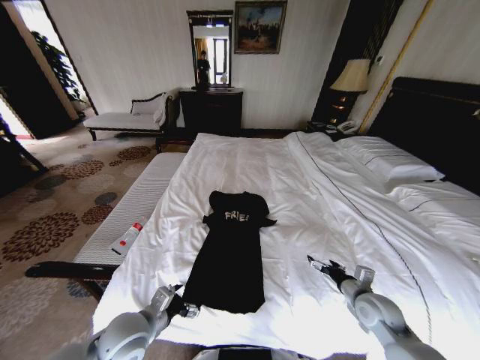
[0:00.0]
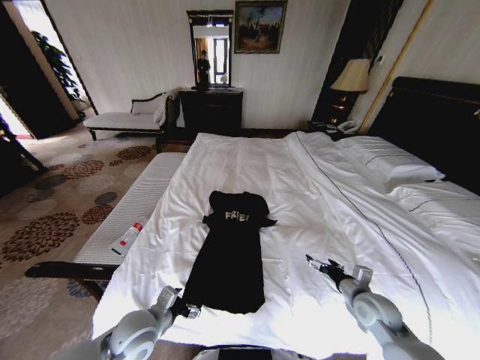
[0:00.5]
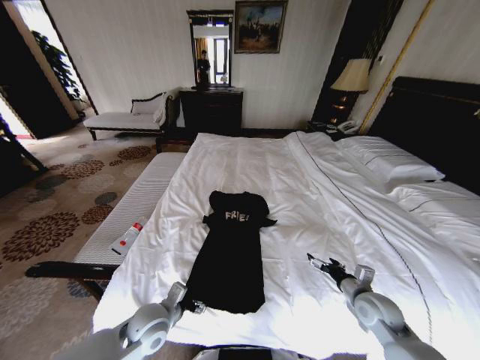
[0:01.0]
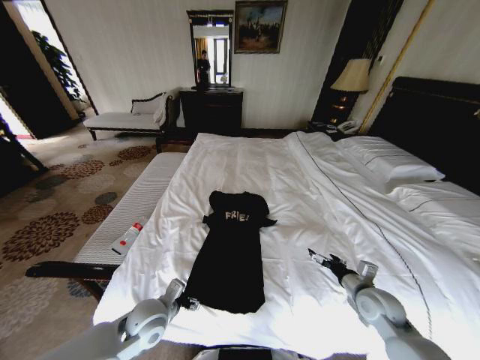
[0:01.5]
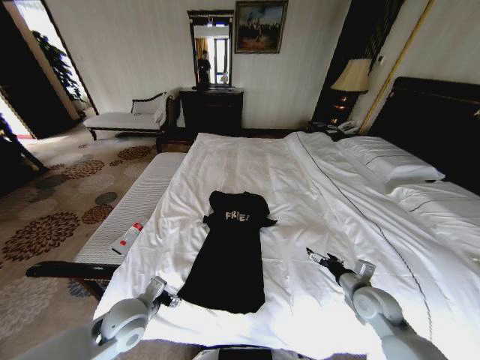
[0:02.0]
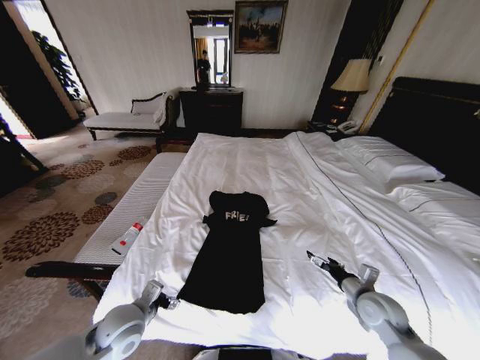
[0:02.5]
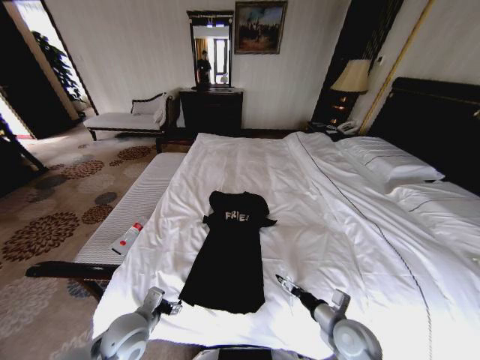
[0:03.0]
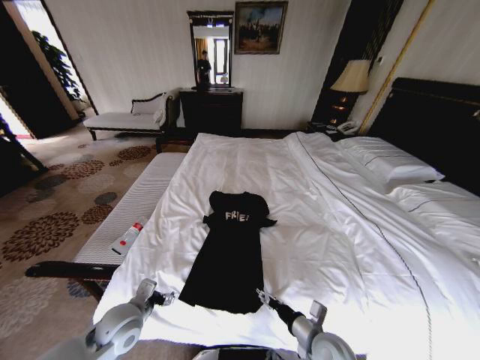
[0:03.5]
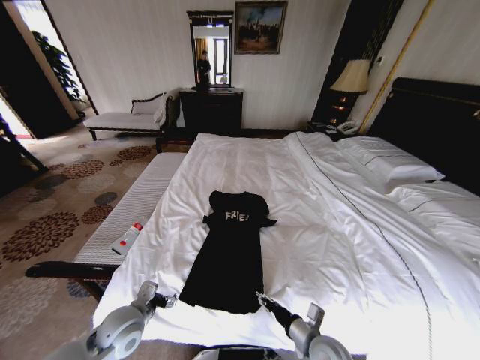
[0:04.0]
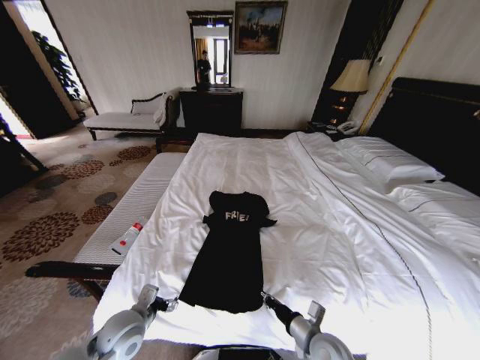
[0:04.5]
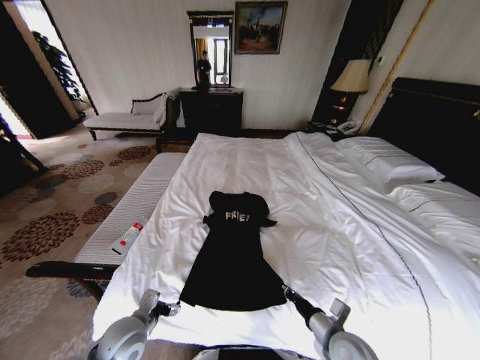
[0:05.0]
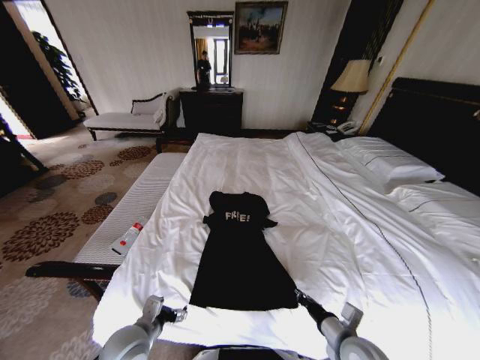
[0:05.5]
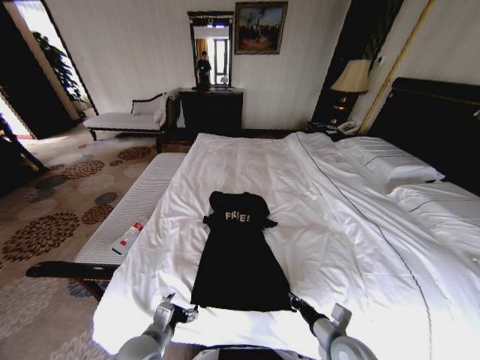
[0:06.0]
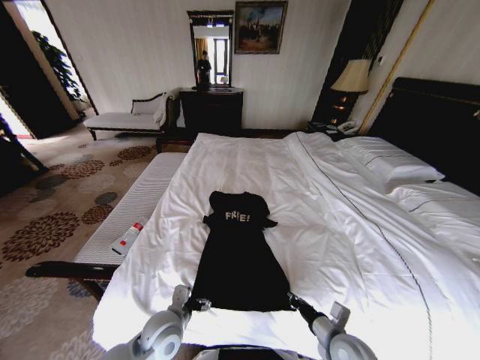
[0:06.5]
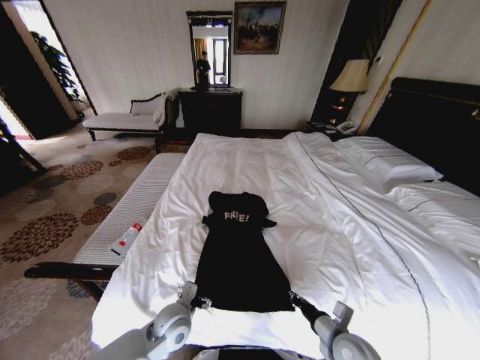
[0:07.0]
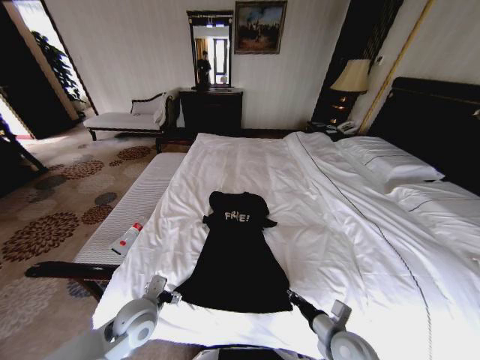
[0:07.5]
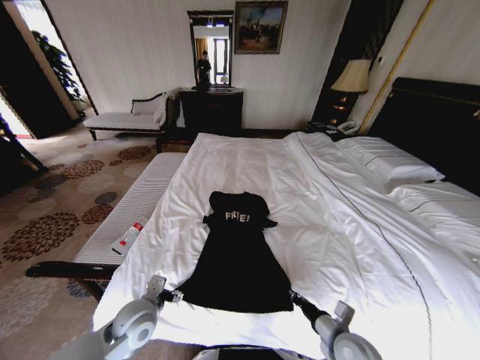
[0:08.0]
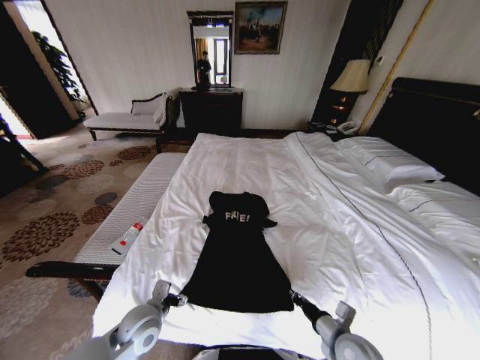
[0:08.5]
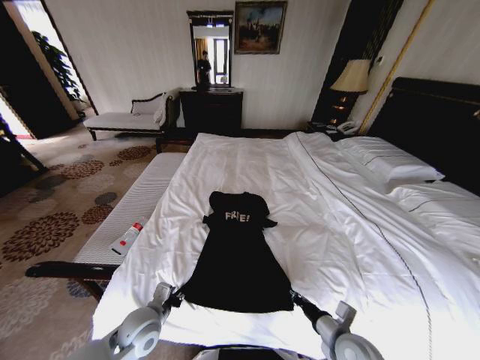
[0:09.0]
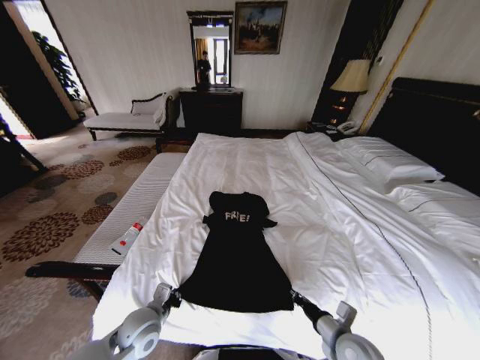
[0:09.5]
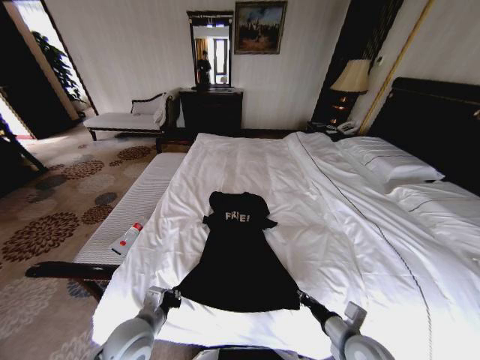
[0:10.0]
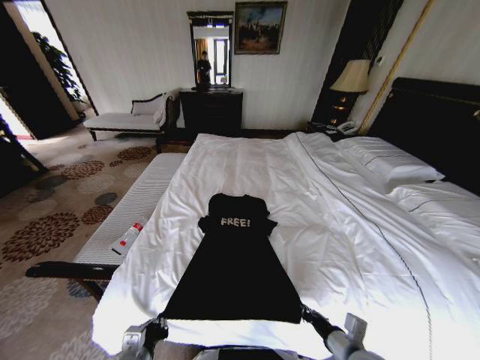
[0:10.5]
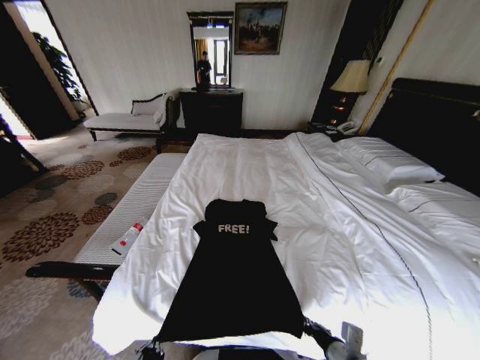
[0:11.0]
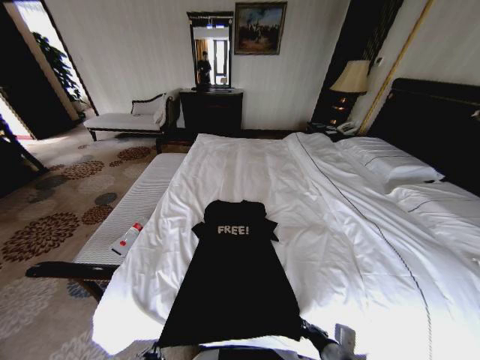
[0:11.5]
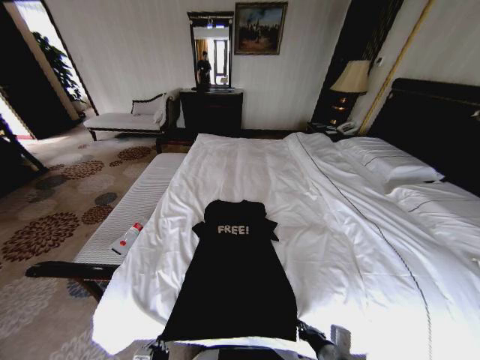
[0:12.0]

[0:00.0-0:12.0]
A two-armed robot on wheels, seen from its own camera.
Task of the whole recording: Fold the clothes on the bed.
0:02.0 to 0:04.0: The right gripper moves to the left and backward, some 20 cm, and closes its fingers.
0:04.0 to 0:06.0: The left gripper heads backward and to the right, covering roughly 10 cm. The right gripper moves to the right, approximately 5 cm, and closes.
0:06.0 to 0:08.0: The left gripper shifts roughly 5 cm forward, and travels to the right and back again, approximately 5 cm each way.
0:08.0 to 0:10.0: The left gripper closes.
0:10.0 to 0:12.0: The right gripper changes place by some 5 cm; the left gripper moves backward and downward, about 15 cm.

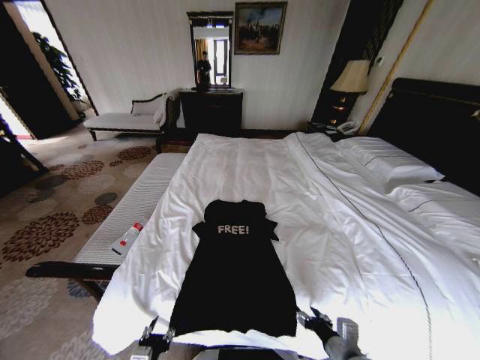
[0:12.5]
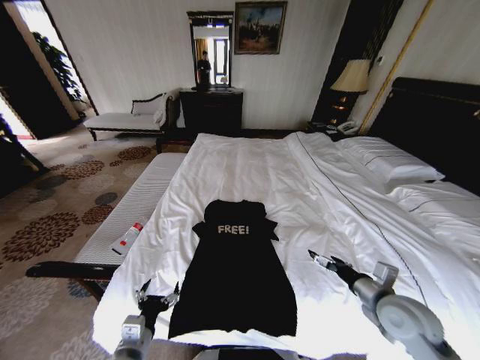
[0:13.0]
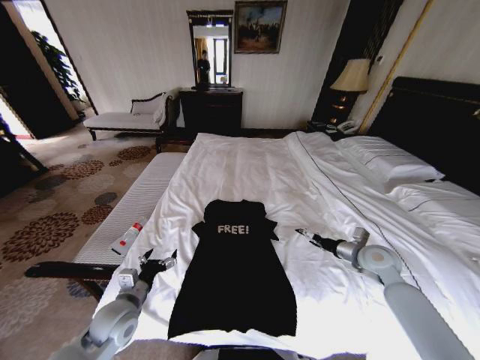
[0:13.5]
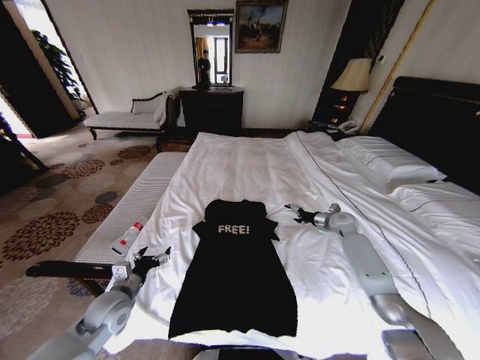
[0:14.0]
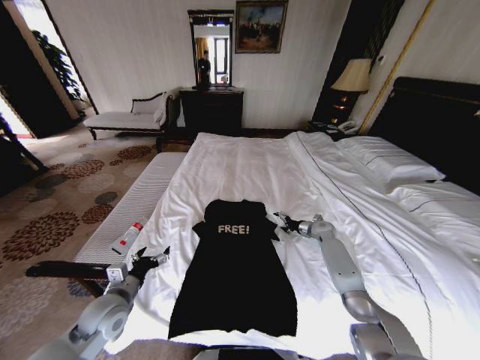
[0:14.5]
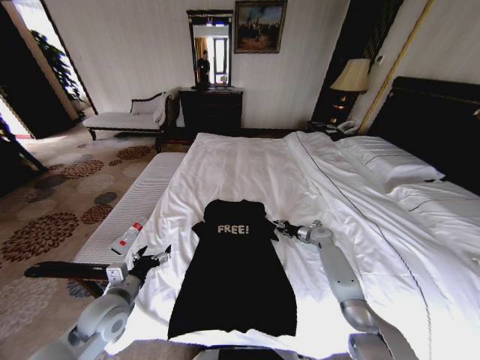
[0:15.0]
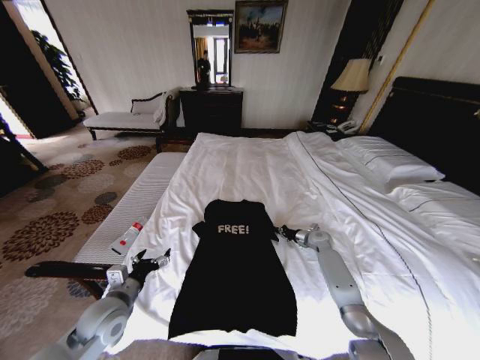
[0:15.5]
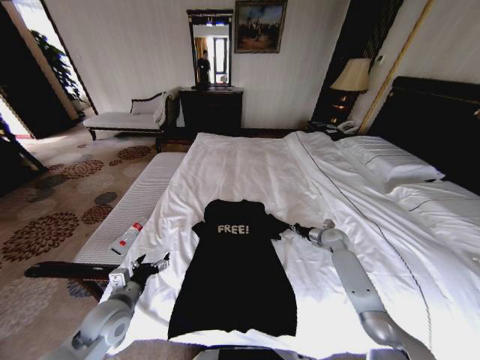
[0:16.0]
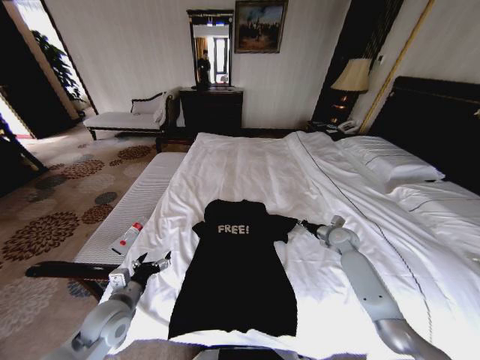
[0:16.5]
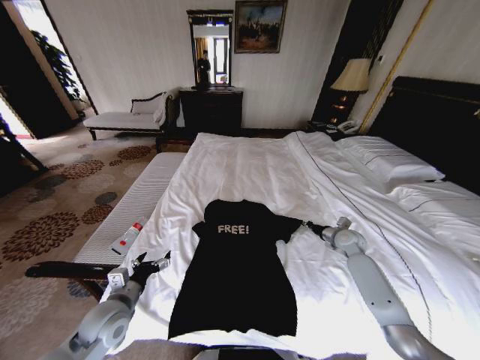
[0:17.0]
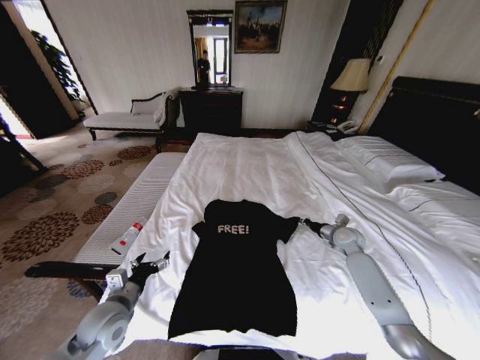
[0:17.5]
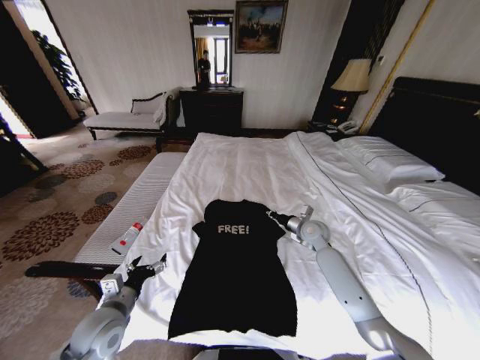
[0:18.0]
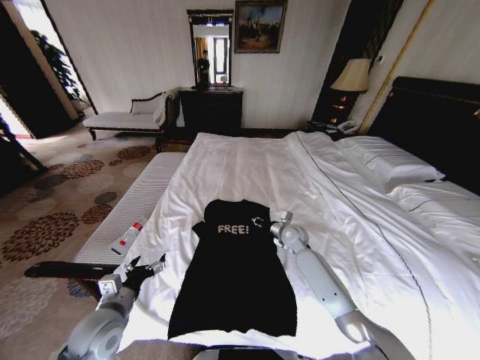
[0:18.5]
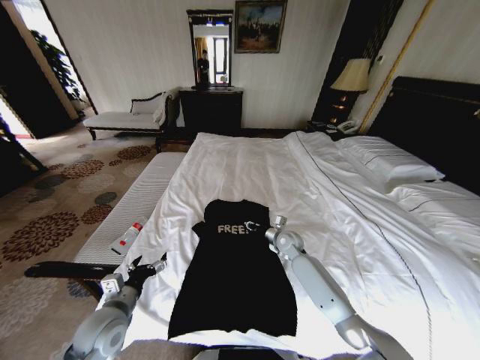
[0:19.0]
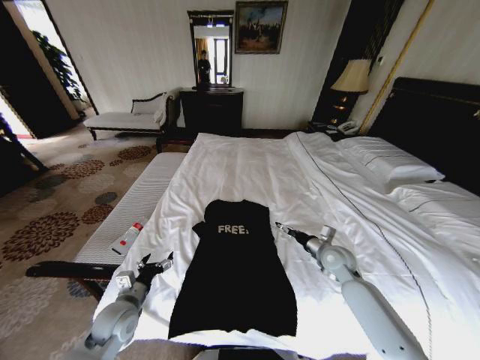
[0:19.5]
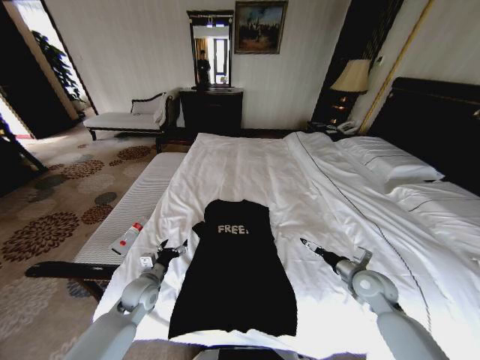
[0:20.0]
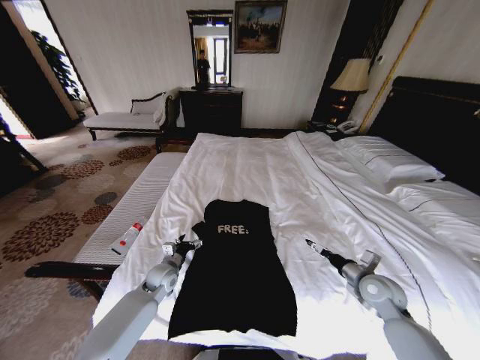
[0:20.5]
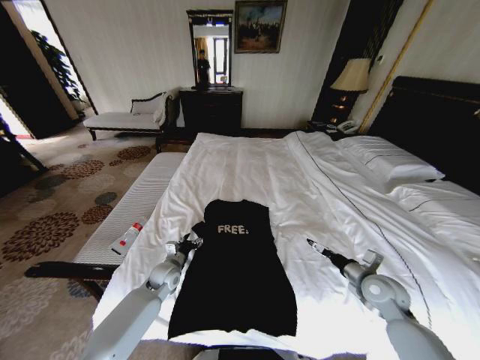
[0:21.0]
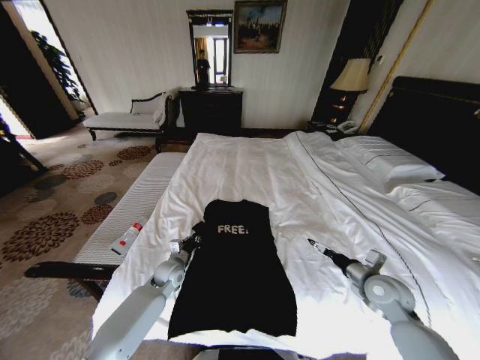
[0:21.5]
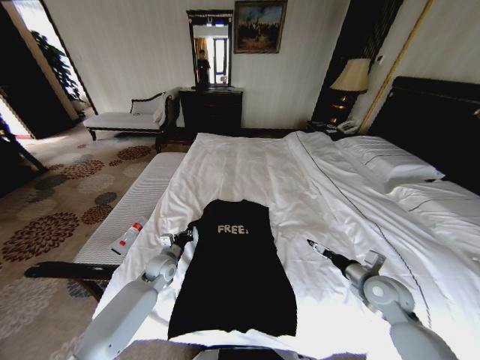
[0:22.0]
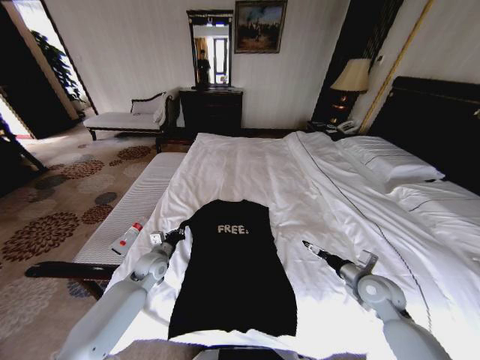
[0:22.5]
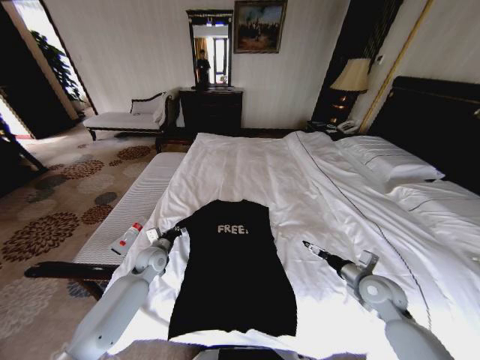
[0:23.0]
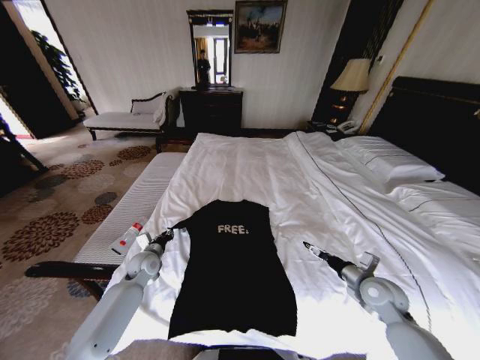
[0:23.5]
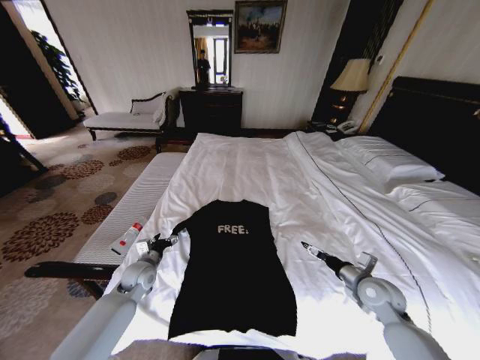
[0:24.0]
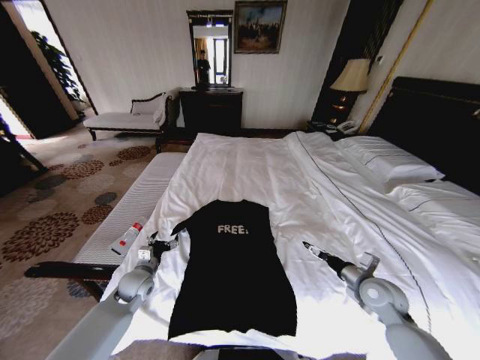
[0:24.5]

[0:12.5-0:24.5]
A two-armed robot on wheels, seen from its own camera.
Task of the whole recording: Fold the clothes on the bed.
0:12.5 to 0:14.5: The right gripper goes roughly 40 cm forward, and opens its fingers. Meanwhile the left gripper shifts approximately 20 cm forward and to the left, and opens.
0:14.5 to 0:16.5: The right gripper moves backward, approximately 5 cm, and closes.
0:16.5 to 0:18.5: The right gripper travels to the left by some 20 cm.
0:18.5 to 0:20.5: The right gripper goes approximately 25 cm backward and to the right, and opens its fingers; the left gripper travels forward, downward and to the right by some 20 cm.
0:20.5 to 0:22.5: The left gripper changes place by some 5 cm, and closes.
0:22.5 to 0:24.5: The left gripper is displaced backward by approximately 5 cm, and opens up.

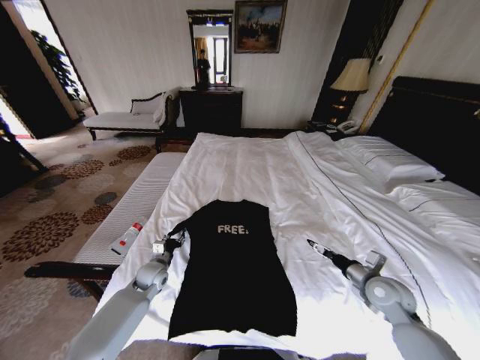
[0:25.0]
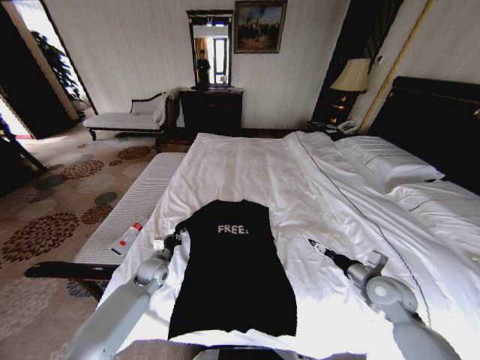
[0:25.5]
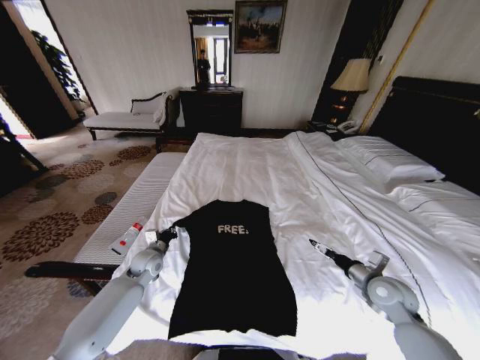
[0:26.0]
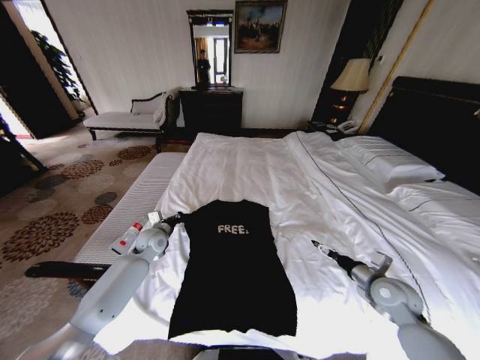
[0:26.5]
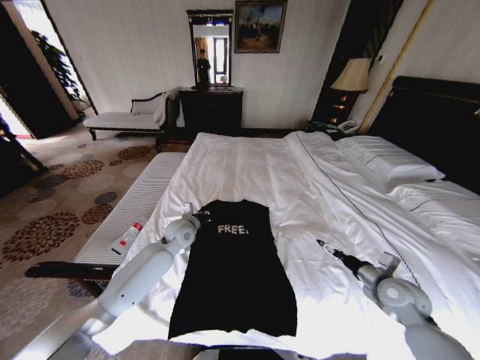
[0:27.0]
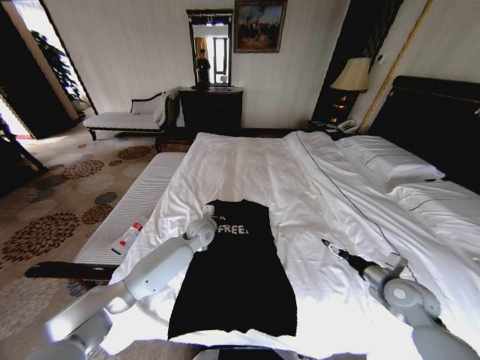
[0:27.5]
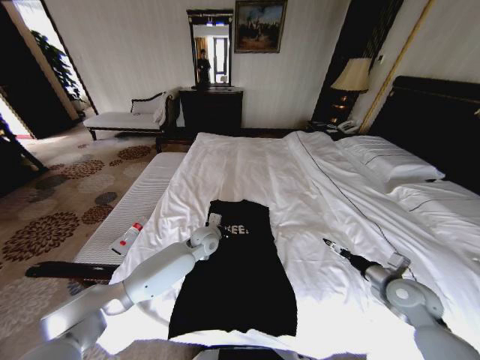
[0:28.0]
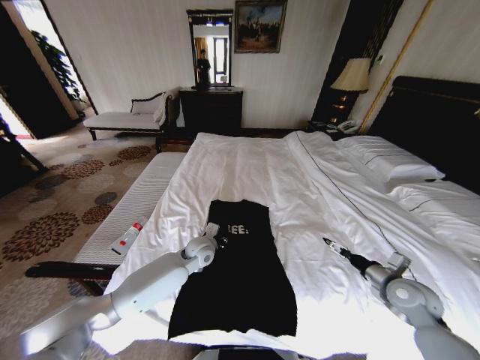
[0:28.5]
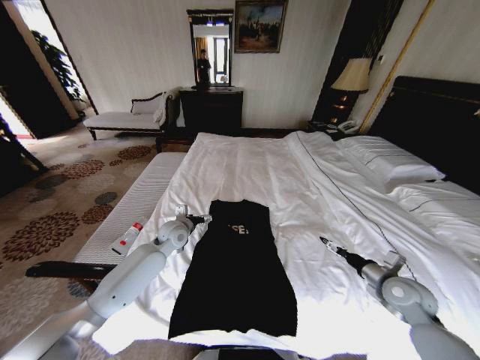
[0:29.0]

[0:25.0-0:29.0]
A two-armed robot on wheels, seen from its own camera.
Task of the whole recording: Fold the clothes on the bed.
0:25.0 to 0:27.0: The left gripper goes approximately 20 cm upward, to the right and forward, and closes.
0:27.0 to 0:29.0: The left gripper reaches about 10 cm to the right, then returns, and opens.
